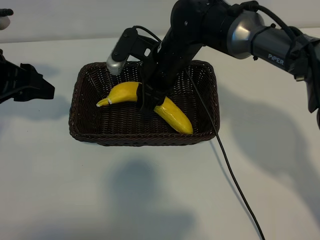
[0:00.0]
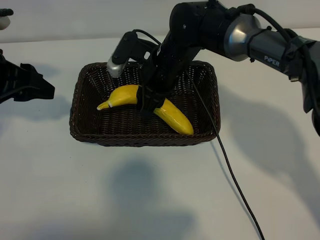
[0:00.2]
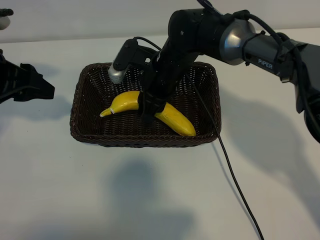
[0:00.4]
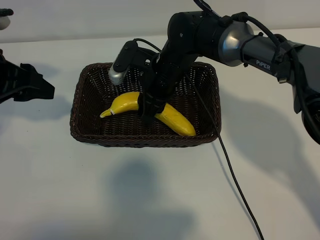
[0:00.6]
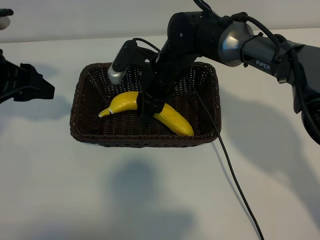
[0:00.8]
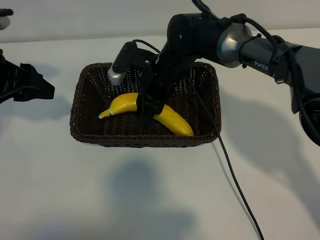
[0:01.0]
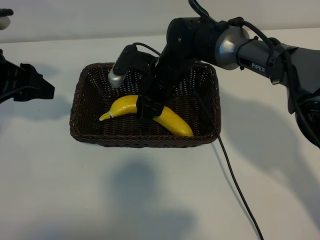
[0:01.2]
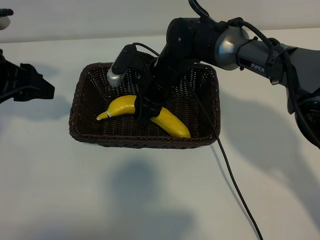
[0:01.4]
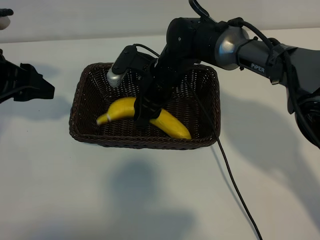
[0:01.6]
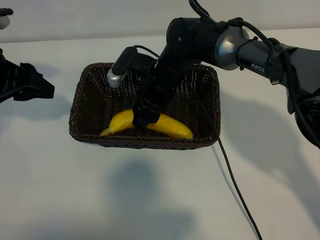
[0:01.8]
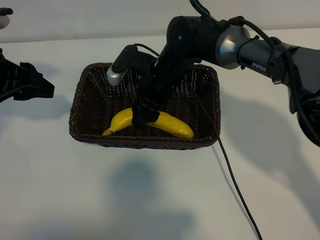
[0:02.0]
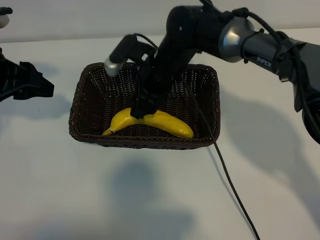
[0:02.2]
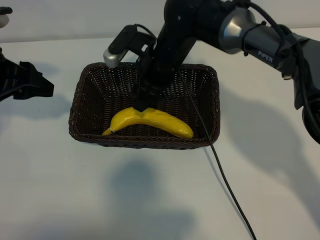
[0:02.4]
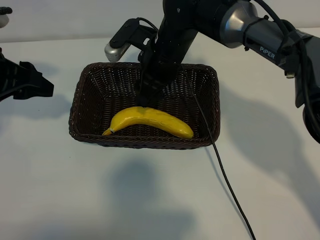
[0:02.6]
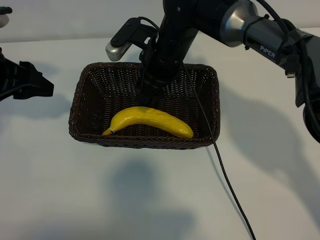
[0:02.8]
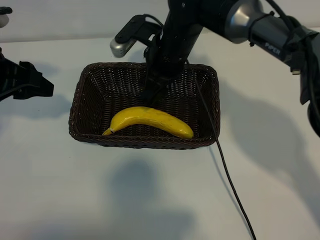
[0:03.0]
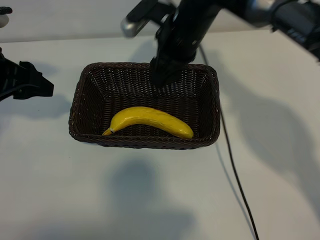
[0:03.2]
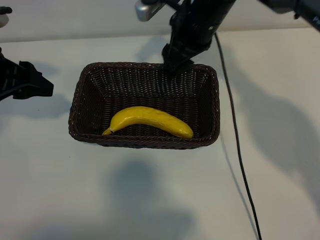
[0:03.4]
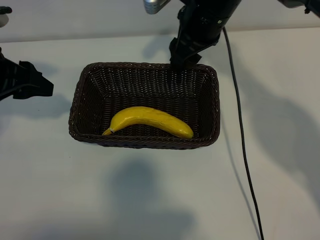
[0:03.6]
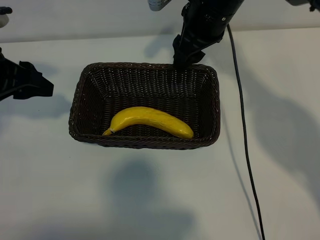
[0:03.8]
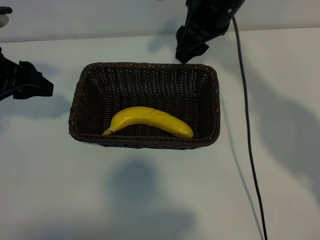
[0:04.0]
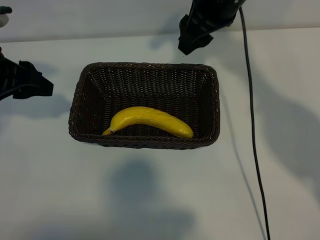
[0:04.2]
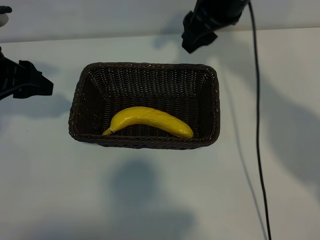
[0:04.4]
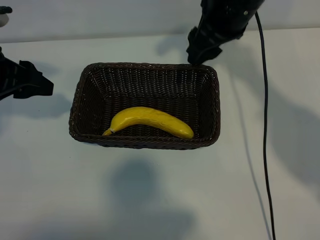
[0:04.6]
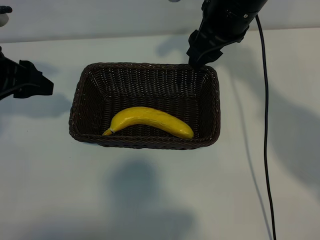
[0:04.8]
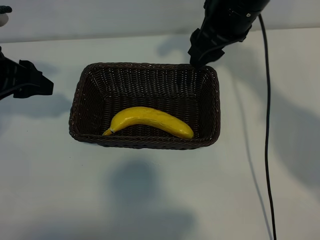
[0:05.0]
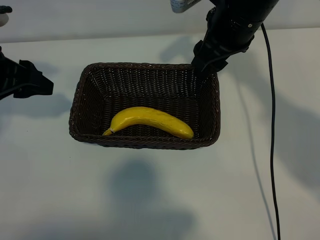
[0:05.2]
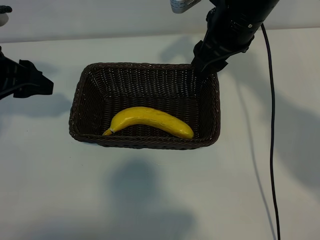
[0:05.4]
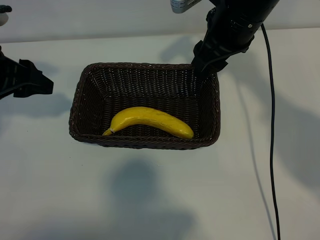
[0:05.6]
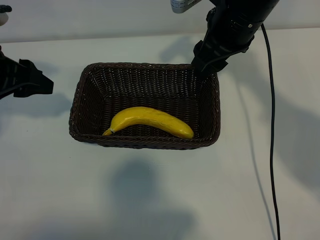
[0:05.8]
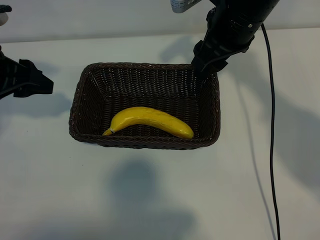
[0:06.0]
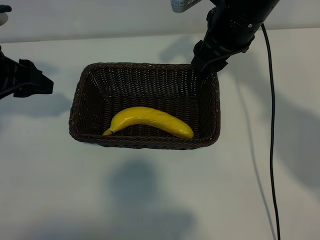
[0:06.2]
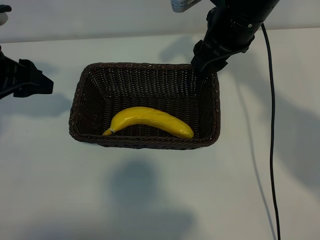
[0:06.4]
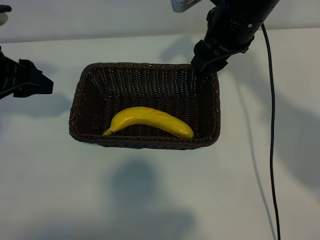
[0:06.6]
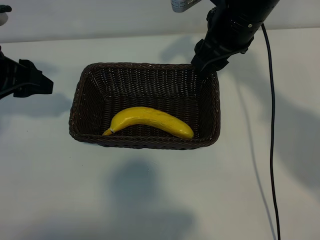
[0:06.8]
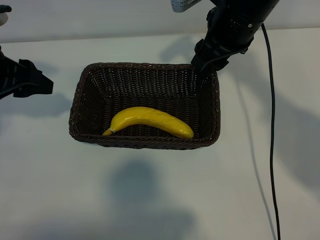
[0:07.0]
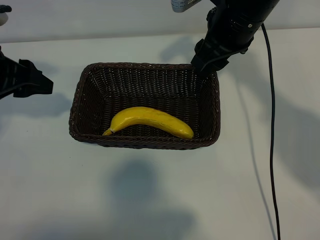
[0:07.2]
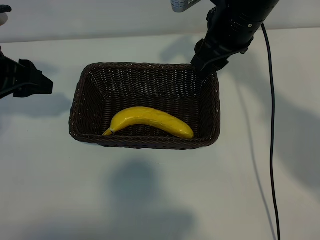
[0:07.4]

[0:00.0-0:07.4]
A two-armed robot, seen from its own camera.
Task of the whole recording: pick up the banana and put it into the basket.
Step, 0:00.0 to 0:02.2: Place the banana in the basket with right gripper.

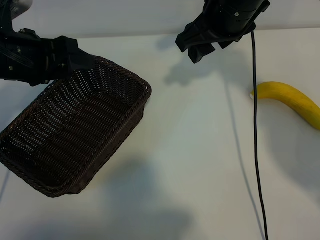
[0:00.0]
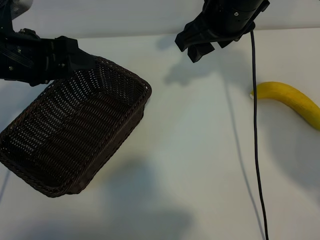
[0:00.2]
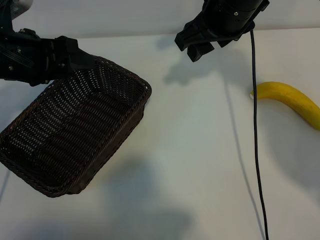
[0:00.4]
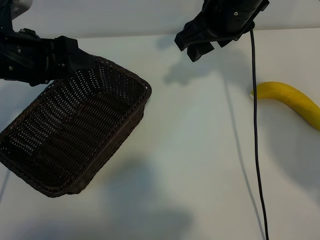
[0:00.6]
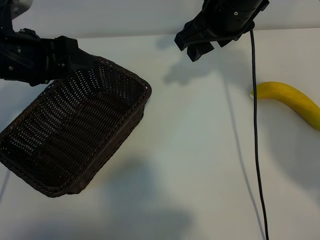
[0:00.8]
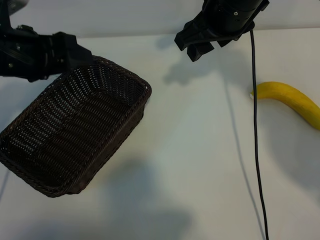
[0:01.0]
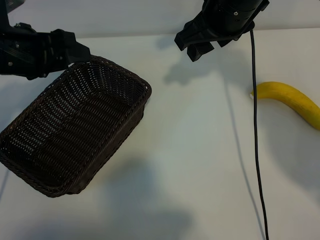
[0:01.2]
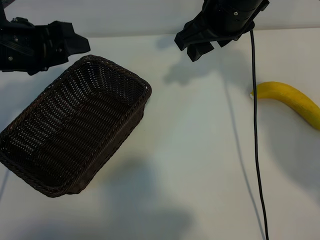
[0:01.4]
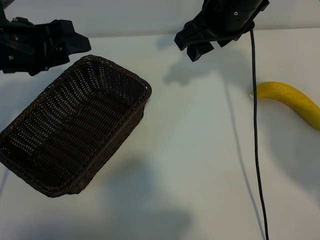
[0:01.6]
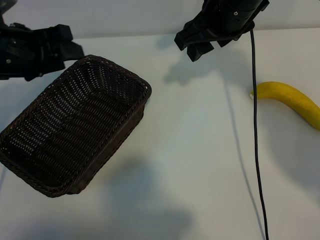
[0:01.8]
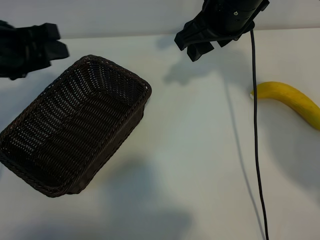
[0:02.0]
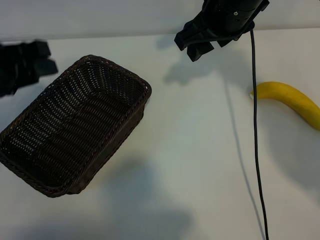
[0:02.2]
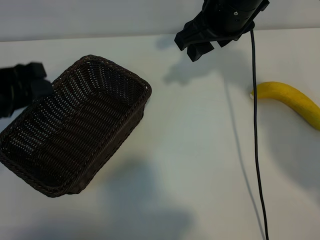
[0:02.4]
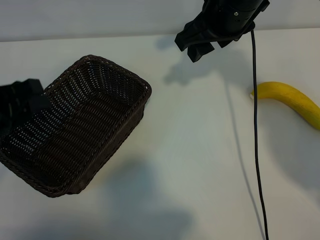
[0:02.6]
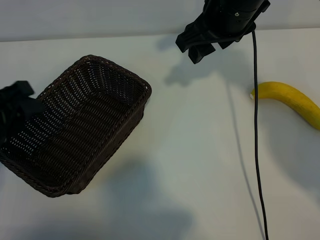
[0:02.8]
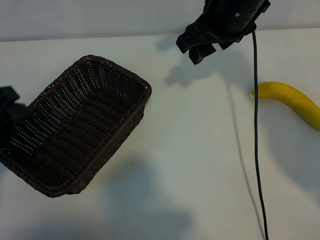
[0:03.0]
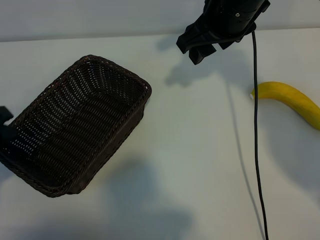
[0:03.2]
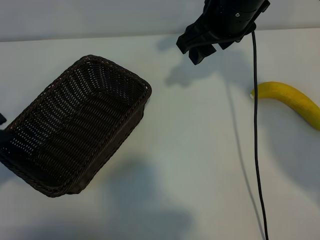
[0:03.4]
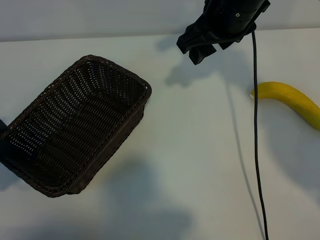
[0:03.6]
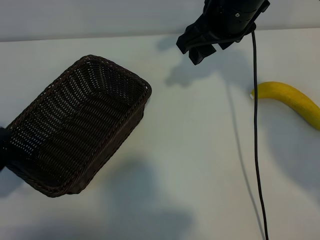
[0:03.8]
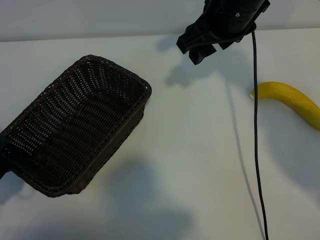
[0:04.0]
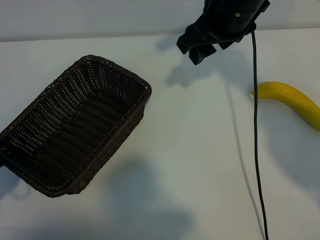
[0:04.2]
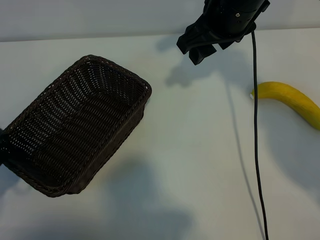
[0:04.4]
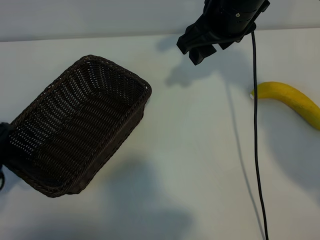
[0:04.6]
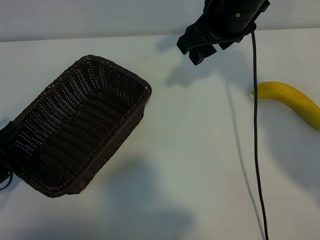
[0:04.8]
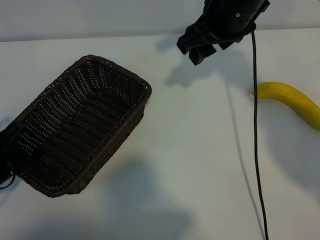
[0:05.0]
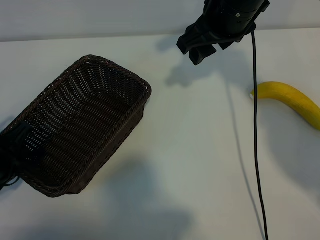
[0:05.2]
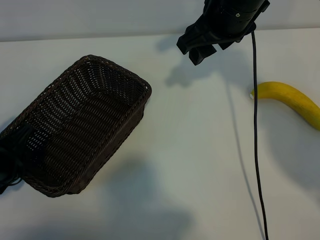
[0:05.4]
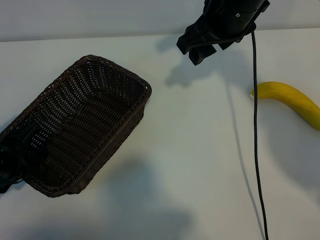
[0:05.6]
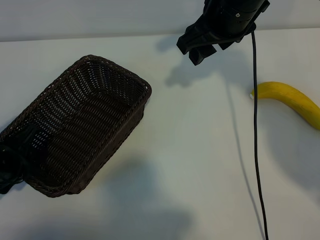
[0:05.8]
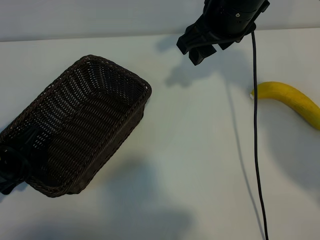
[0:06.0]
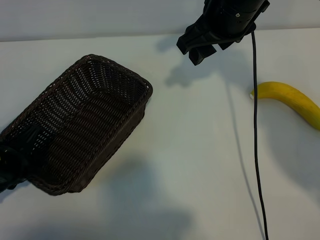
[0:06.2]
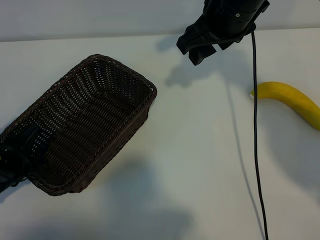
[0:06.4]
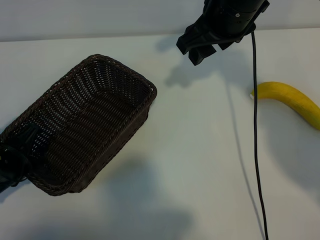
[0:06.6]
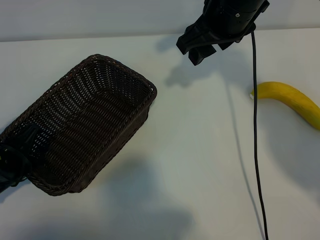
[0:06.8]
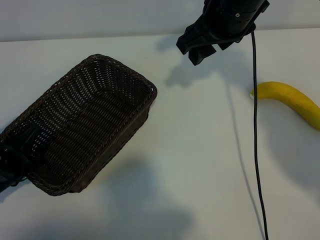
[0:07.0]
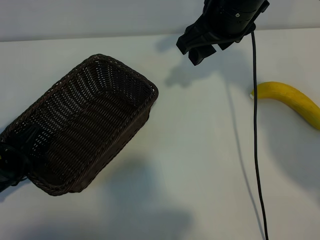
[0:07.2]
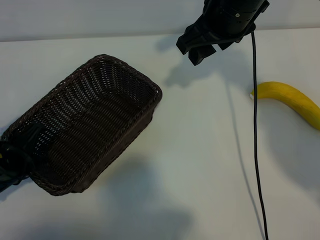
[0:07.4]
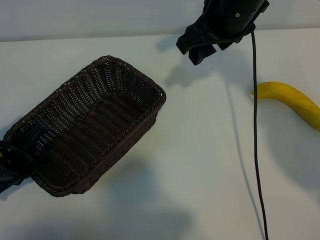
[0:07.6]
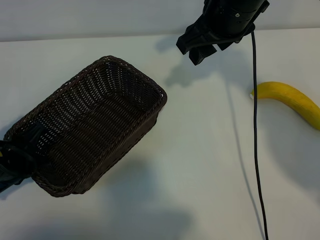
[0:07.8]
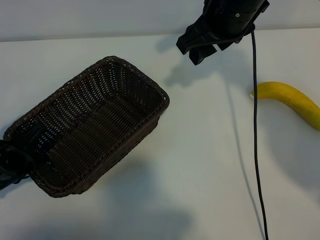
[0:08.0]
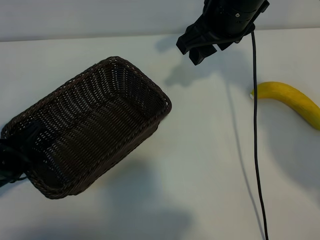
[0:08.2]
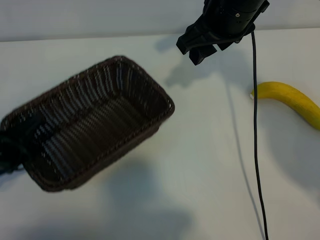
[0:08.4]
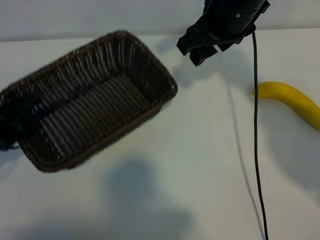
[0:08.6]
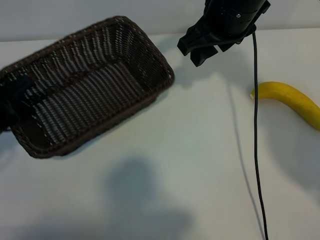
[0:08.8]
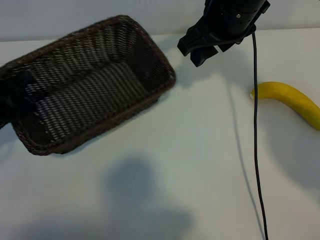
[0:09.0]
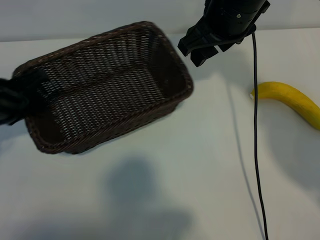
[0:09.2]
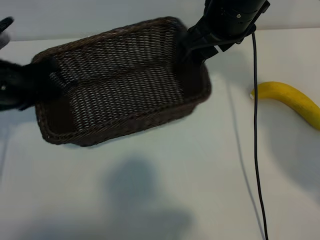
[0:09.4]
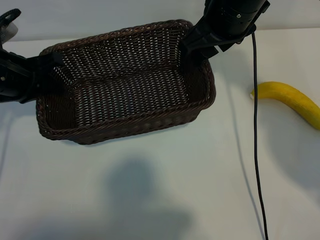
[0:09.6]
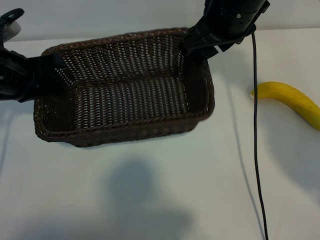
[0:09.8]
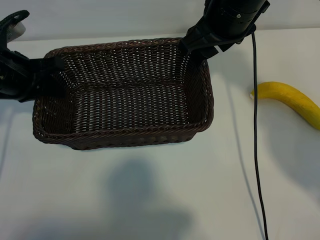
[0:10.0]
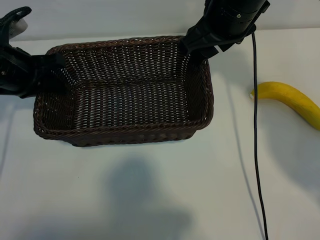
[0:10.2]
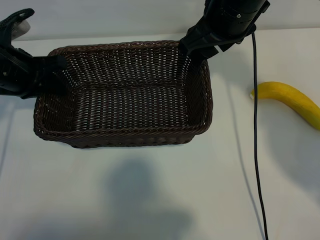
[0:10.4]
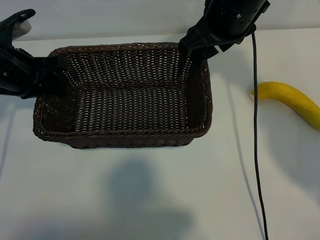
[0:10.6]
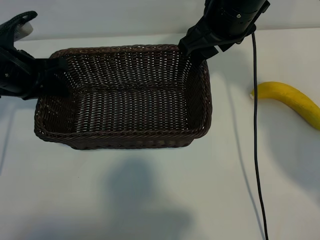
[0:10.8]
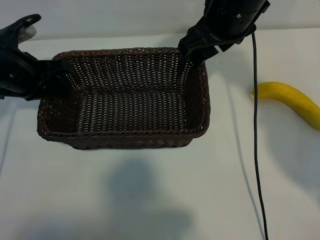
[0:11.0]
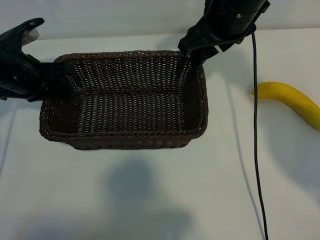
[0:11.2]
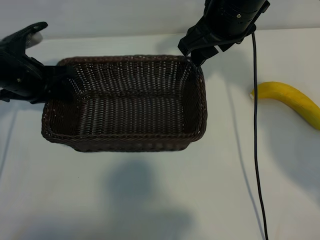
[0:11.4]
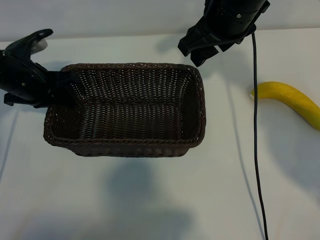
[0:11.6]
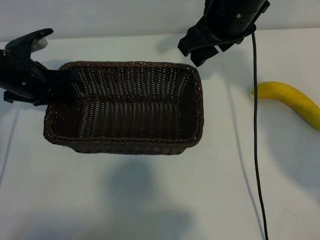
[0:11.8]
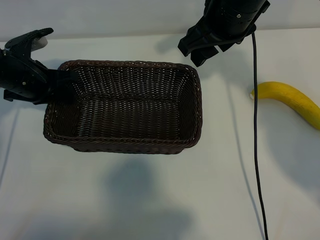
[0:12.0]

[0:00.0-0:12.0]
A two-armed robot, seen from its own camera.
Task of the whole recording: pick up the banana and put it into the basket.
Step, 0:01.0 to 0:06.0: Grasp the basket with the left gripper.

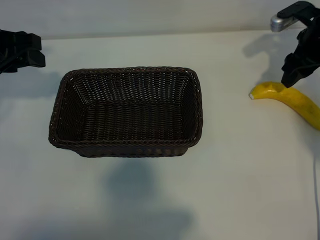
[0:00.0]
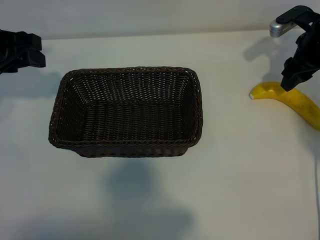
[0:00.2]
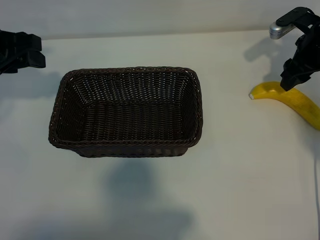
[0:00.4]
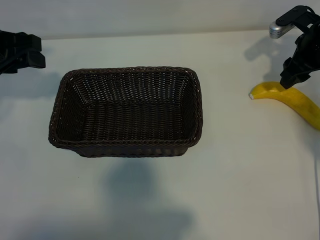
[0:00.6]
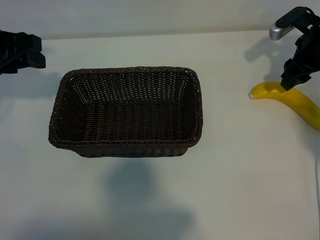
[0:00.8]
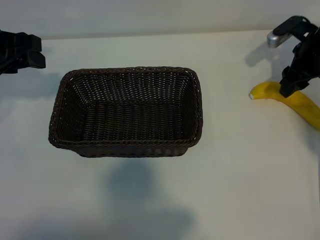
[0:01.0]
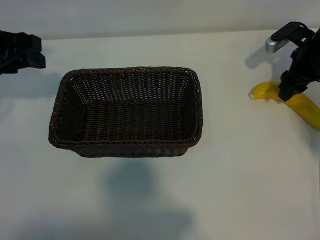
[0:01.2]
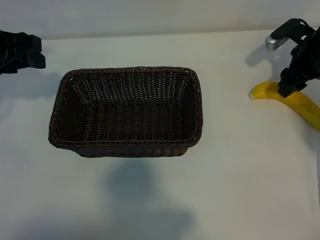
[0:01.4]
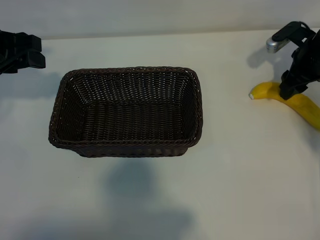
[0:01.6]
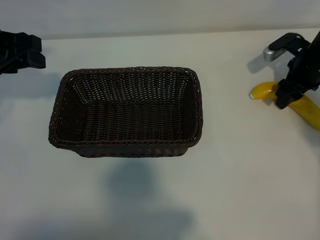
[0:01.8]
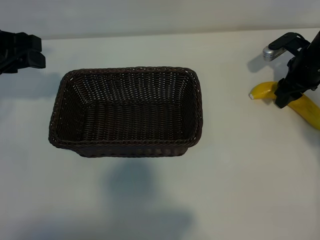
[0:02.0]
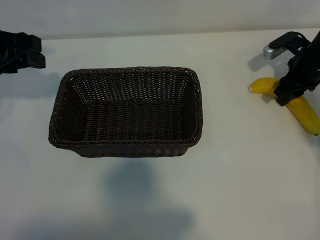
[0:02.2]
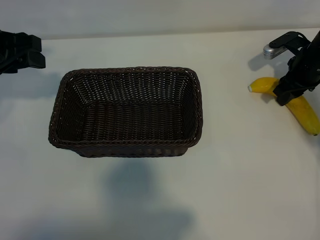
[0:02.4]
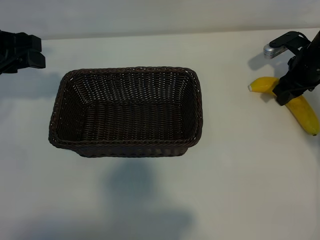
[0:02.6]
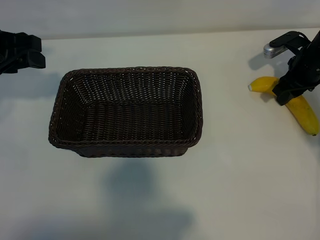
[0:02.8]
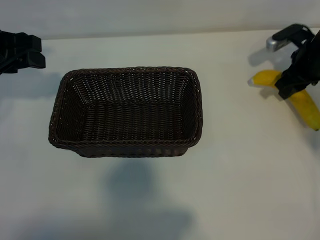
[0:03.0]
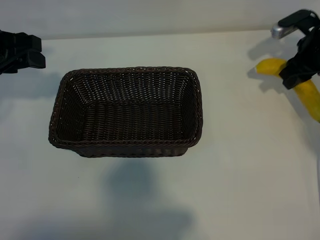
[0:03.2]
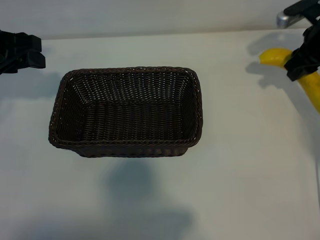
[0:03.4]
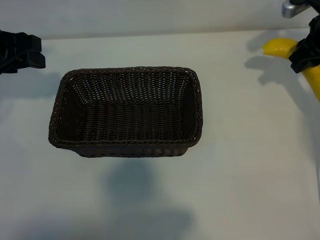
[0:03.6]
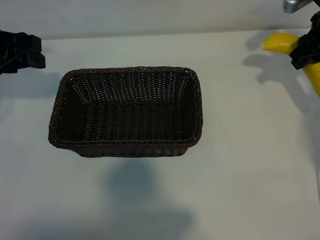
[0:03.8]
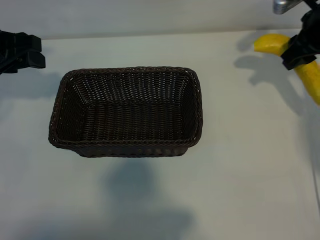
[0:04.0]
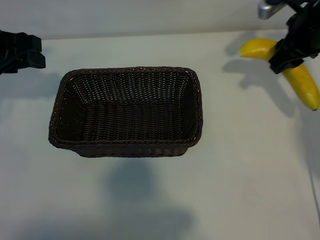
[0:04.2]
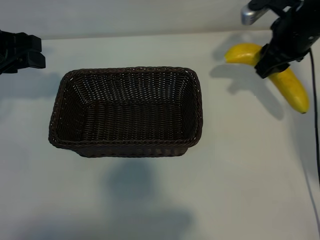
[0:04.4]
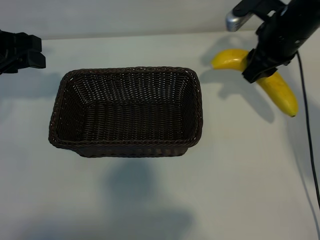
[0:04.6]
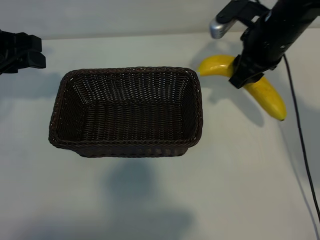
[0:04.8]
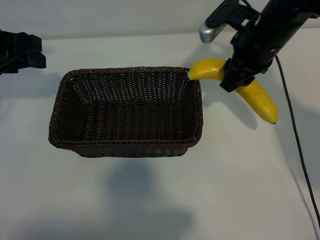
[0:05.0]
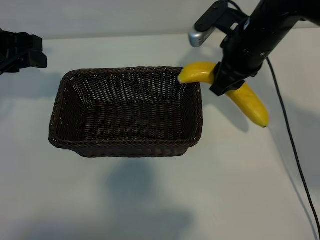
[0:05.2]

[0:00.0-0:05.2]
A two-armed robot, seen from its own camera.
Task of the whole recording: pick up the banana and put it into the basket.
Step, 0:00.0 to 0:02.6: Grasp the banana with right gripper.
